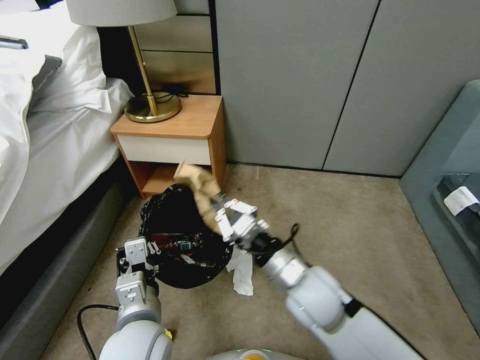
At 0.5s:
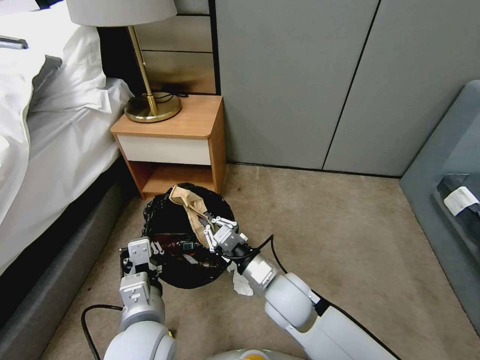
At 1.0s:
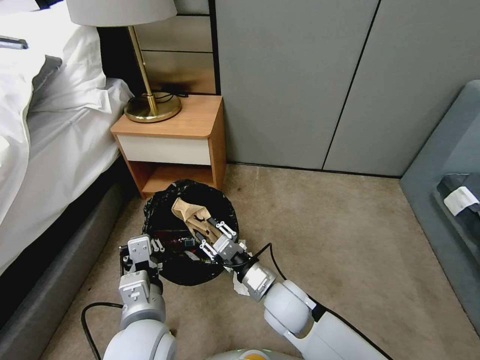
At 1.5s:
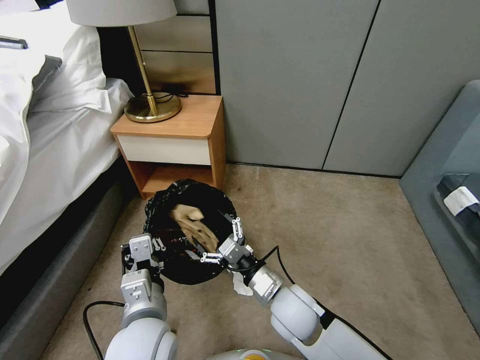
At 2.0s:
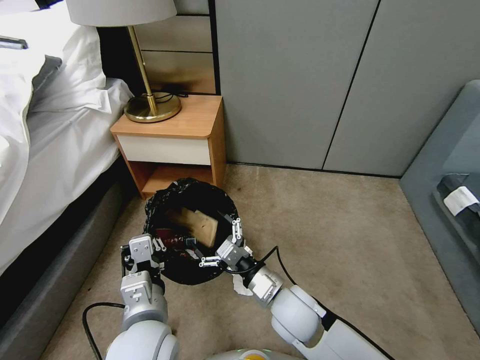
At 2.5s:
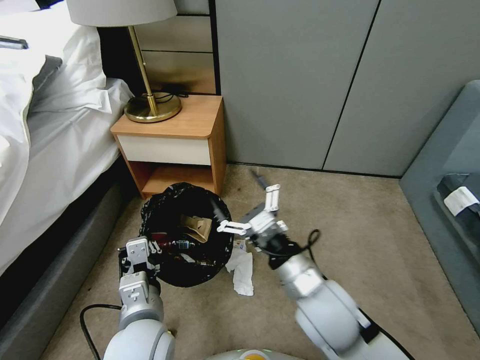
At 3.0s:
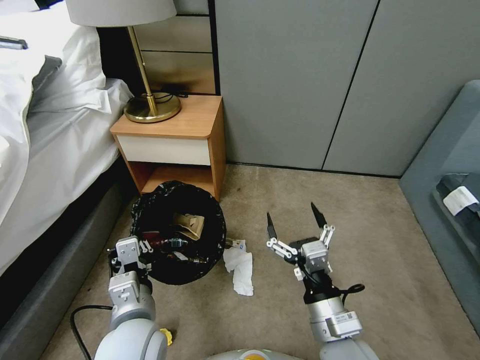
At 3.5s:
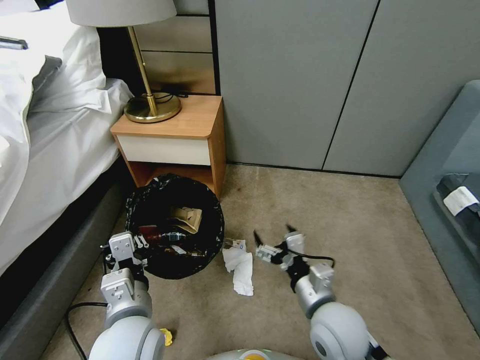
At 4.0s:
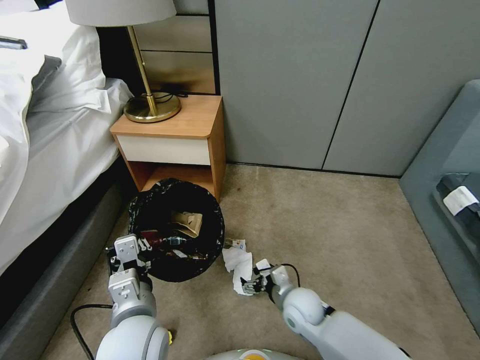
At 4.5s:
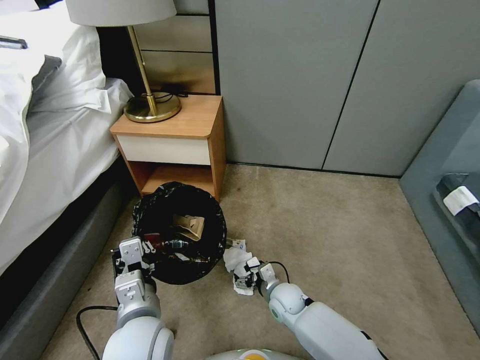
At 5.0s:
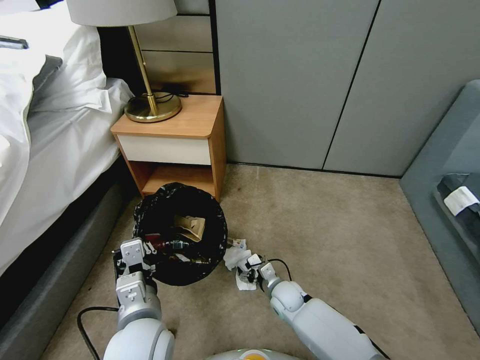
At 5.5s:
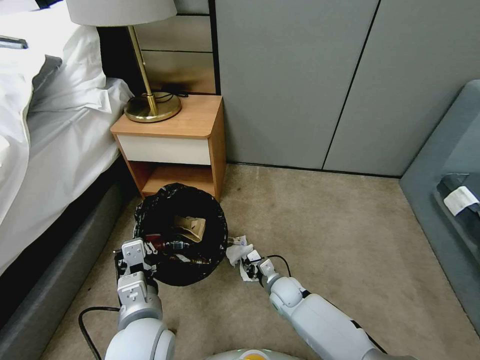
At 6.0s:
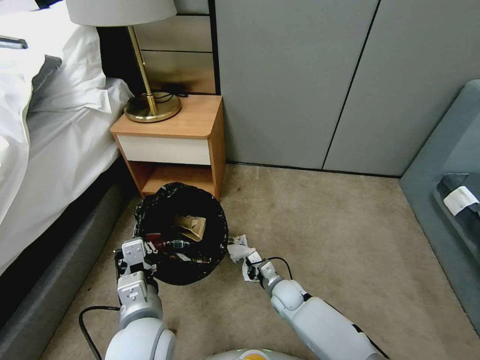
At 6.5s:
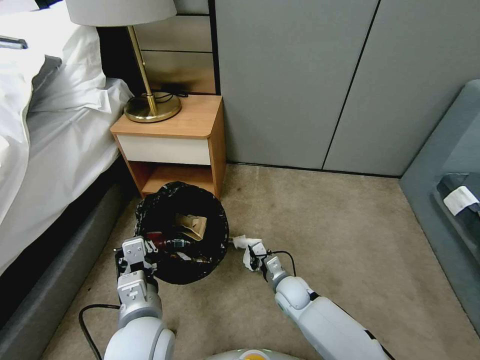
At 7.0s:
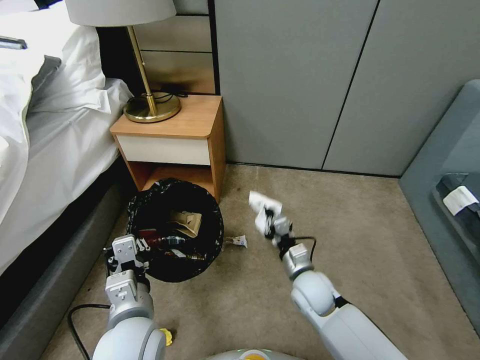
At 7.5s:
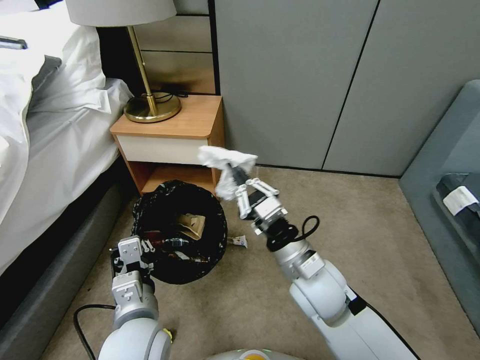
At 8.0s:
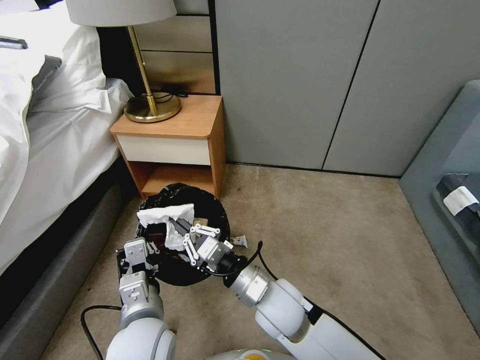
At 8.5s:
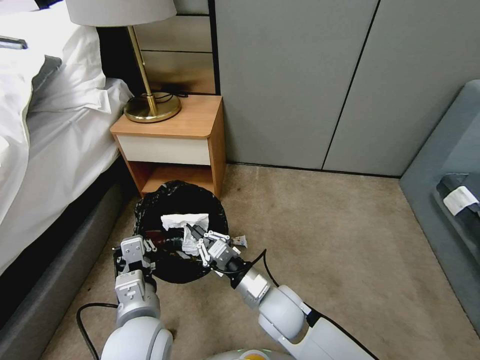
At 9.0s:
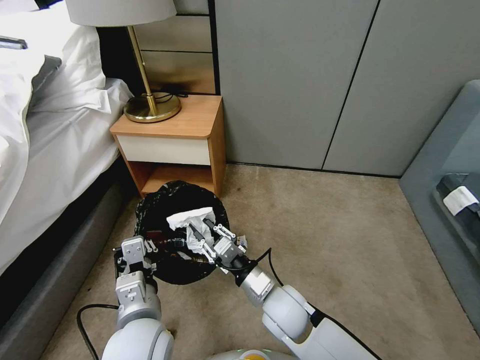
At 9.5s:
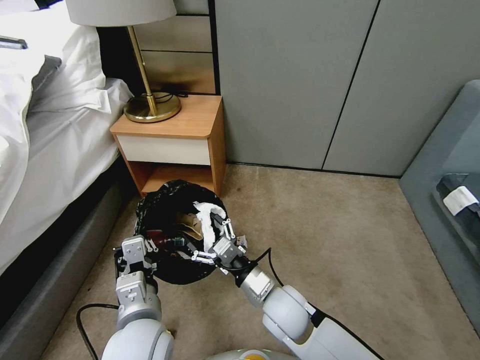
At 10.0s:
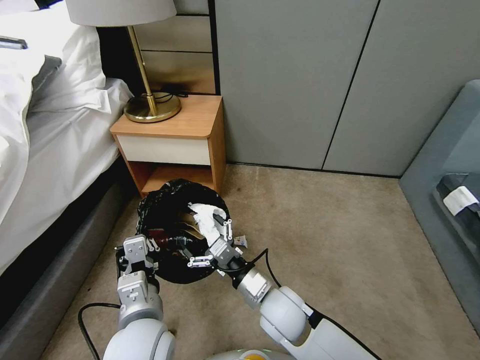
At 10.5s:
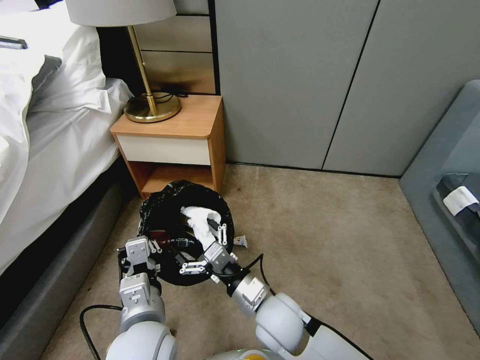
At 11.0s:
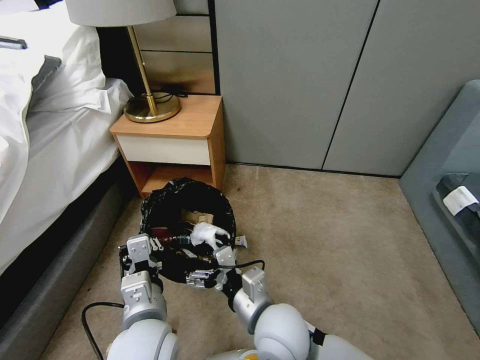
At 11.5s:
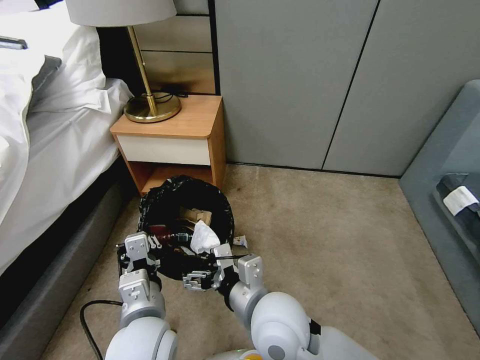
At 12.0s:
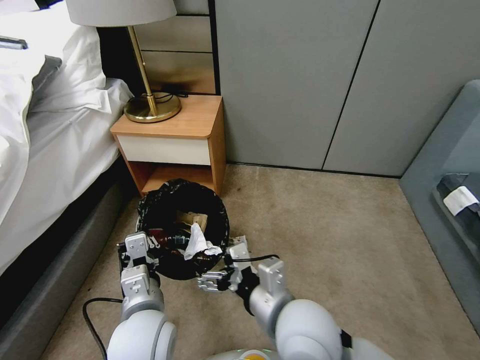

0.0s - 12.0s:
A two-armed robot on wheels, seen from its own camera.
Task of the whole recording: Pick up the trash bin, then pick up the garbage from the floor and place it into the trash bin.
0.0s - 2.0s: The right gripper goes some 10 cm downward, and opens.
2.0s - 4.0s: The right gripper goes about 10 cm downward.
4.0s - 6.0s: The right gripper is displaced downward by approximately 10 cm, and closes.
6.0s - 8.0s: The right gripper shifts approximately 25 cm upward.
8.0s - 10.0s: The right gripper shifts by roughly 5 cm, and opens up.
10.0s - 12.0s: The right gripper is displaced upward and backward by some 15 cm.

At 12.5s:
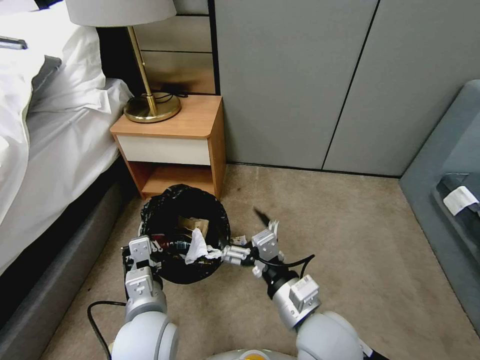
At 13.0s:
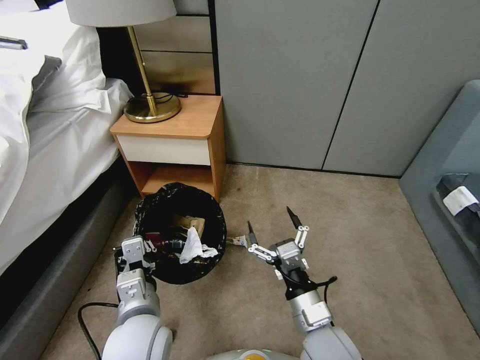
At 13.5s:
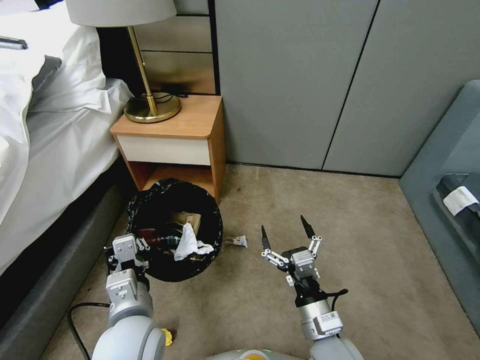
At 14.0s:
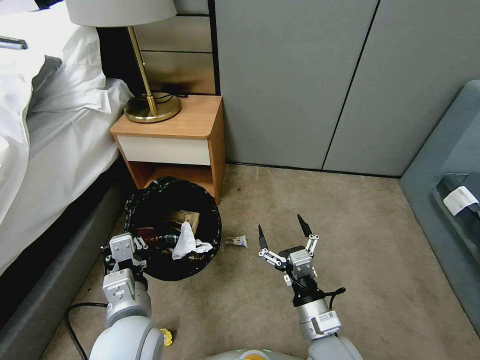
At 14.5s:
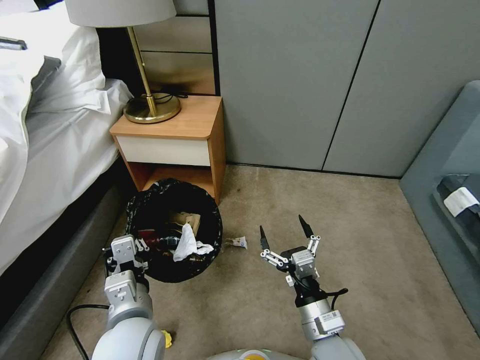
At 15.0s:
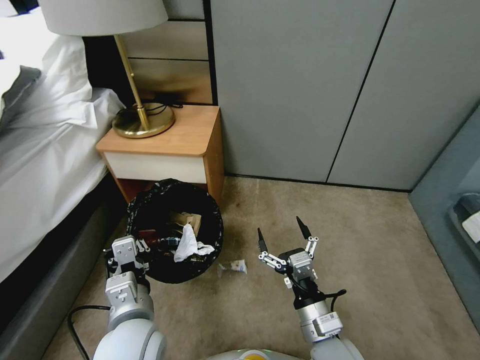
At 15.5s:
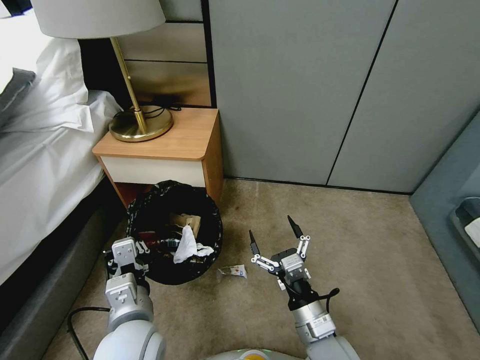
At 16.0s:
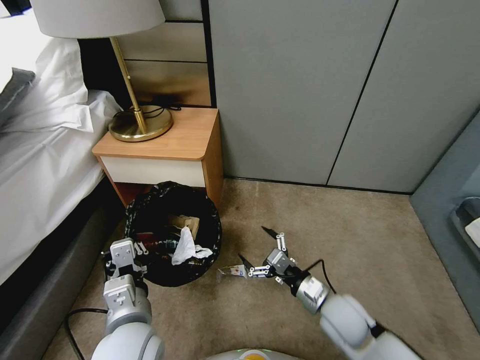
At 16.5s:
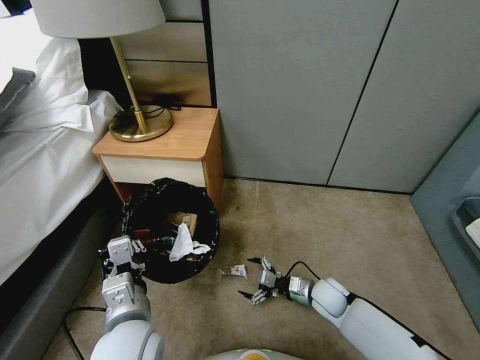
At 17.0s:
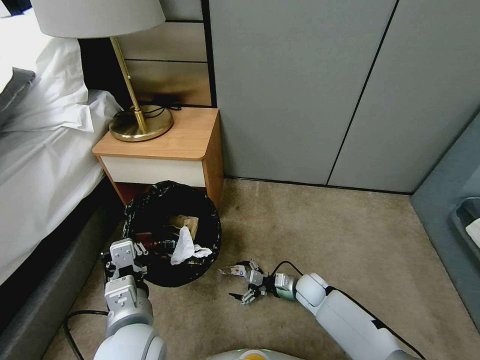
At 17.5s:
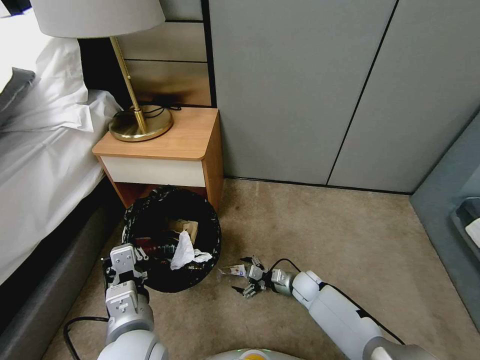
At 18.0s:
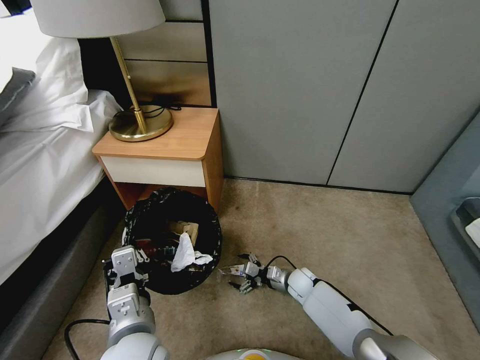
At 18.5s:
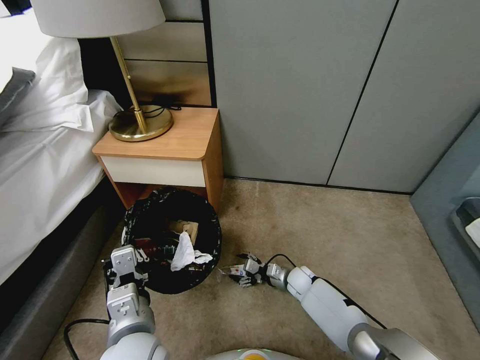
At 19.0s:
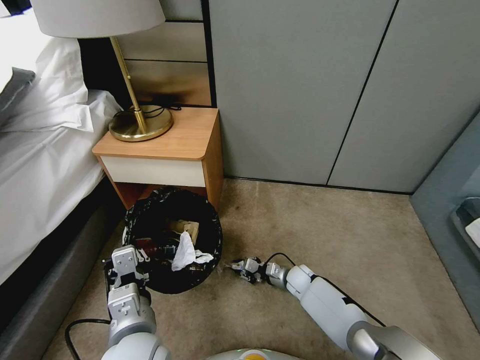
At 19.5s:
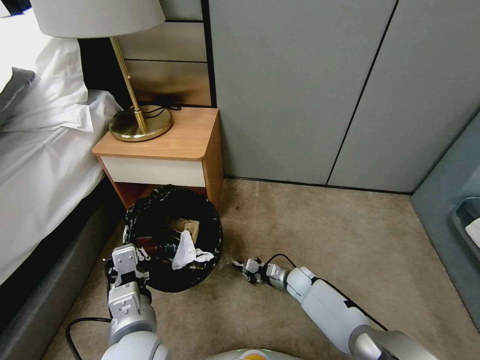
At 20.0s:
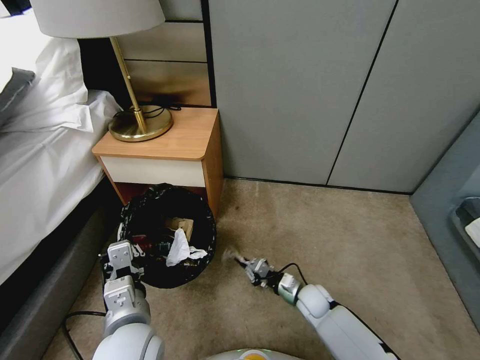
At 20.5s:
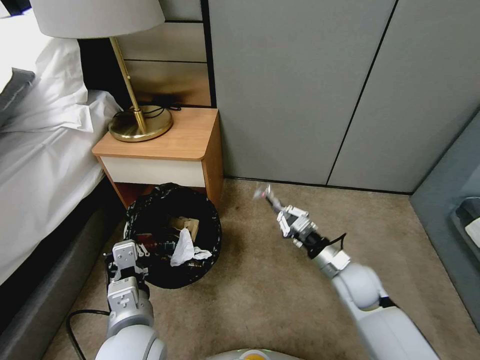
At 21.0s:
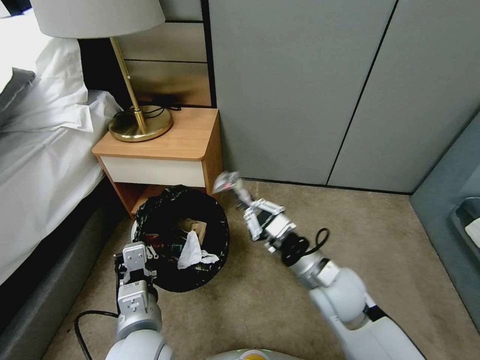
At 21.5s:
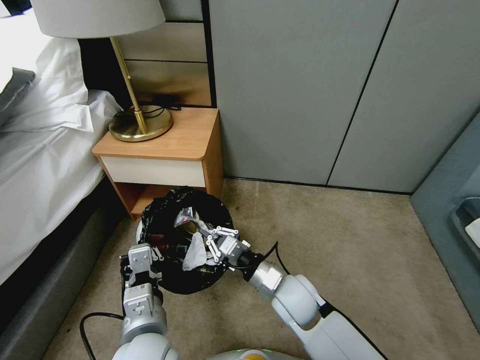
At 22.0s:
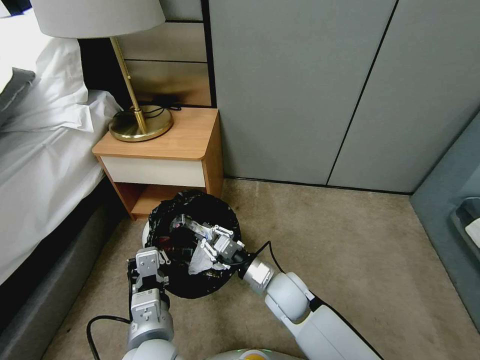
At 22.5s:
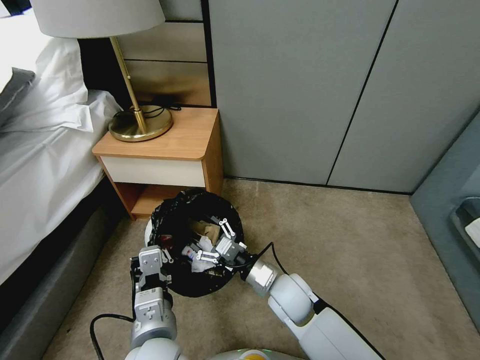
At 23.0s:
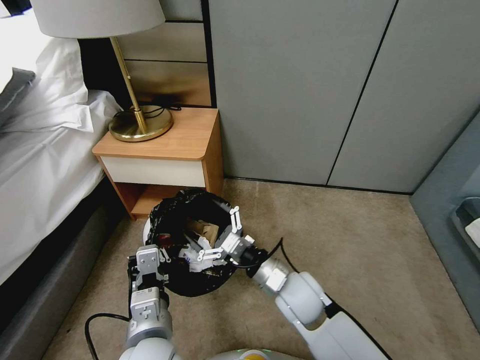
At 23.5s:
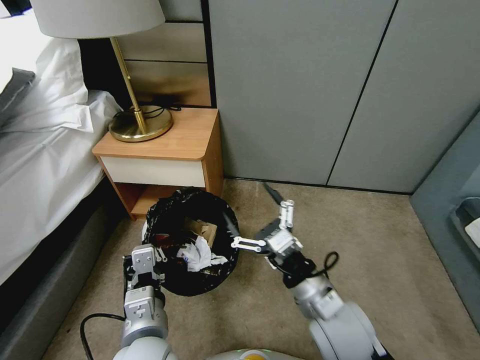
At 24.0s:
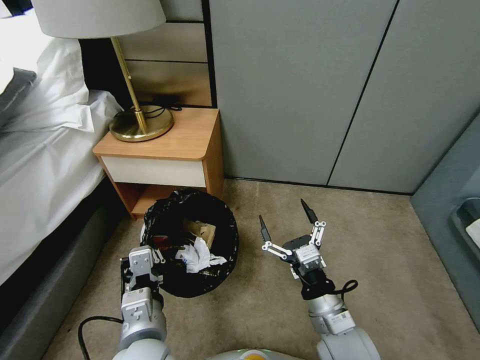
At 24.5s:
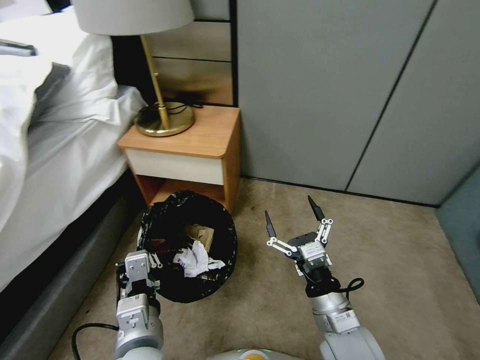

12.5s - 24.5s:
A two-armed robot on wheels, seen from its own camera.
Task of the whole recording: Pick up the trash bin, then pick up the garbage from the floor and place it into the trash bin.
12.5s - 14.5s: The right gripper goes about 10 cm downward.
14.5s - 16.5s: The right gripper heads forward, downward and to the right, covering approximately 20 cm.
16.5s - 18.5s: The right gripper moves downward and forward, some 10 cm.
18.5s - 20.5s: The right gripper heads upward, covering approximately 20 cm, and closes its fingers.
20.5s - 22.5s: The right gripper is displaced to the left by approximately 15 cm, and opens its fingers.
22.5s - 24.5s: The right gripper travels backward, to the right and upward by approximately 15 cm.

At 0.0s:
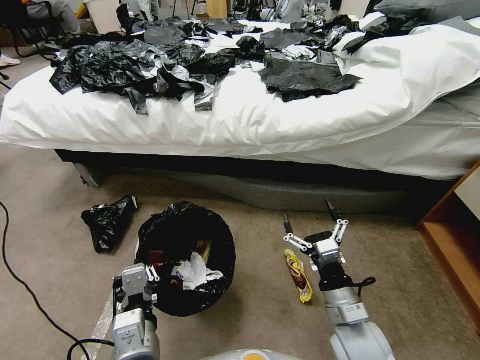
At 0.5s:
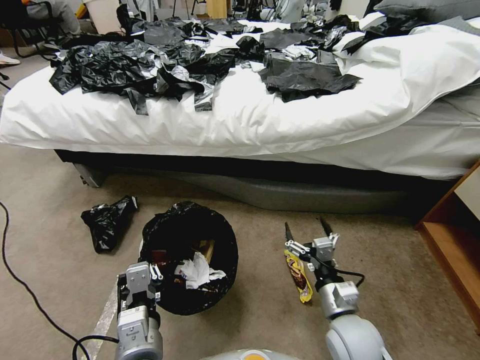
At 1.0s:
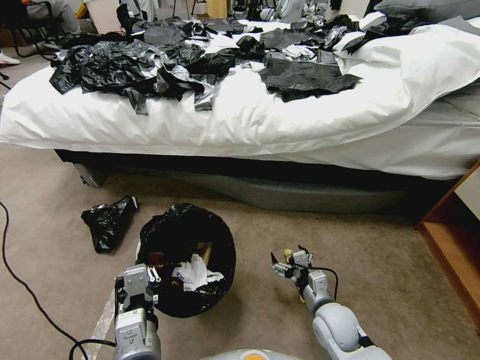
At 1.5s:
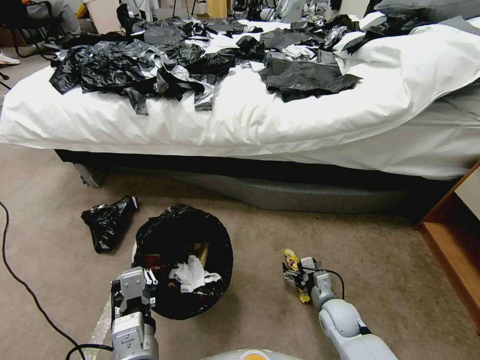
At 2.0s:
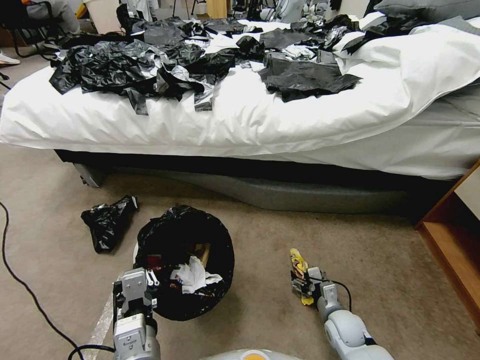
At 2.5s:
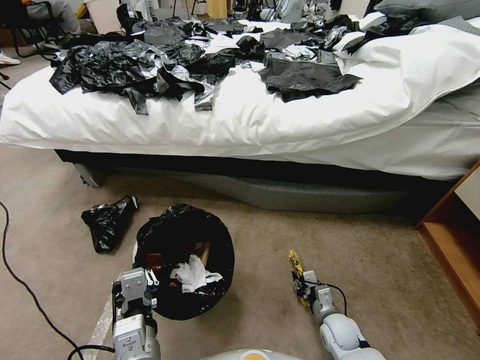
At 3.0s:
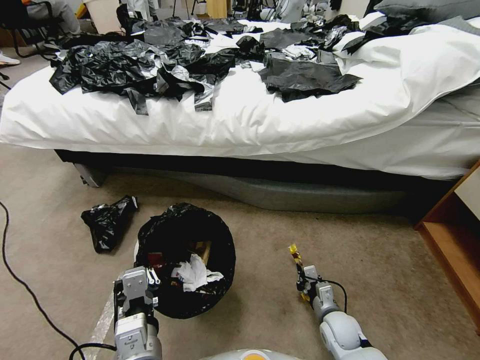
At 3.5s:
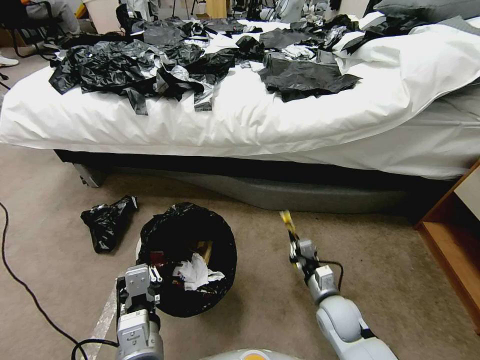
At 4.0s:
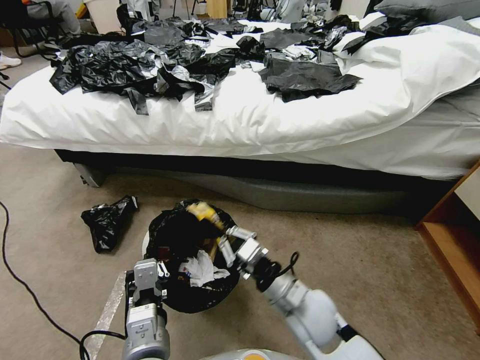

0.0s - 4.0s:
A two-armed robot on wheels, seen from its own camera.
Task of the whole recording: Pick up the trash bin, then pick up the garbage from the floor and place it into the trash bin.
0.0s - 2.0s: The right gripper heads downward, covering some 20 cm.
2.0s - 4.0s: The right gripper shifts about 25 cm upward and to the left, and closes up.
